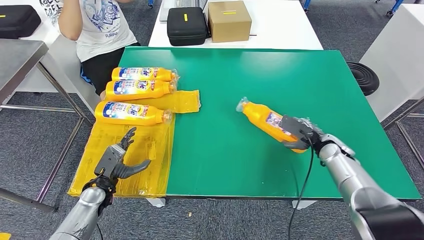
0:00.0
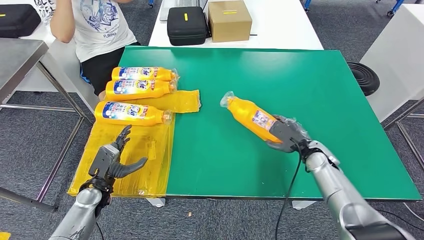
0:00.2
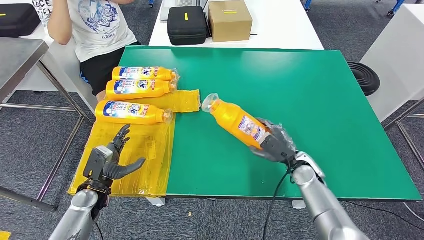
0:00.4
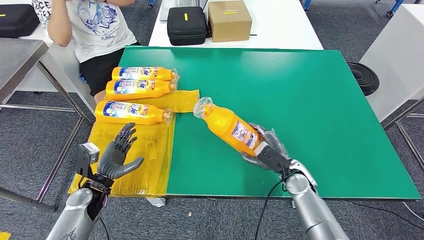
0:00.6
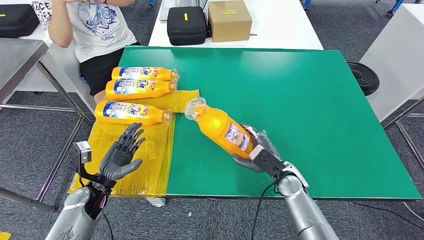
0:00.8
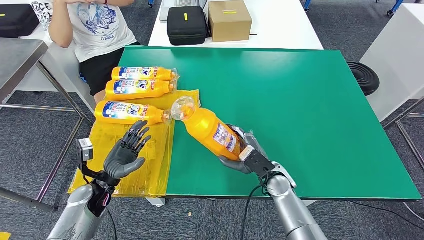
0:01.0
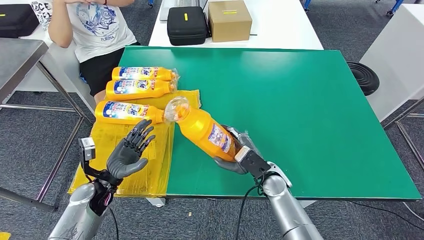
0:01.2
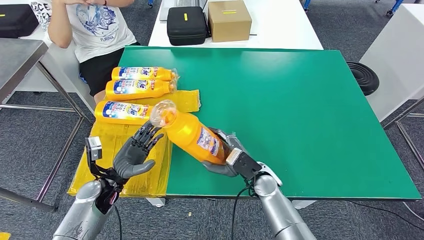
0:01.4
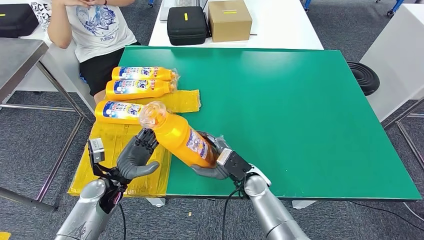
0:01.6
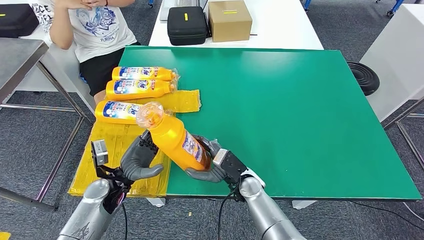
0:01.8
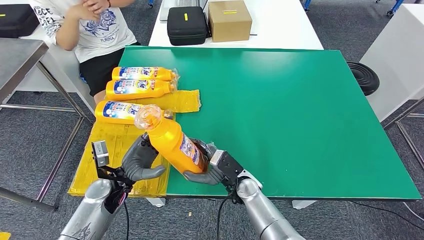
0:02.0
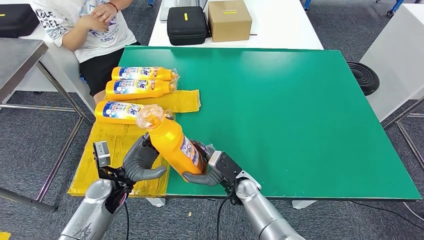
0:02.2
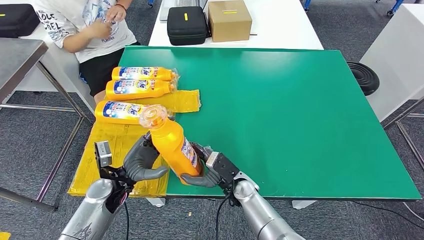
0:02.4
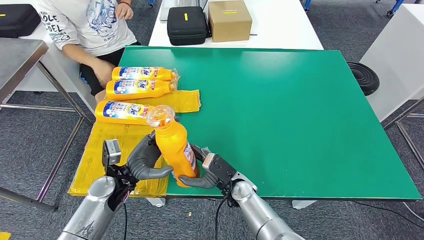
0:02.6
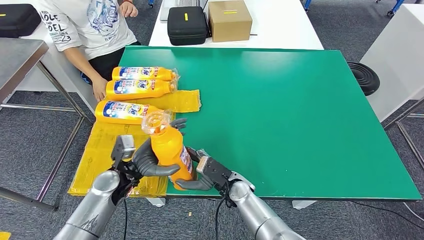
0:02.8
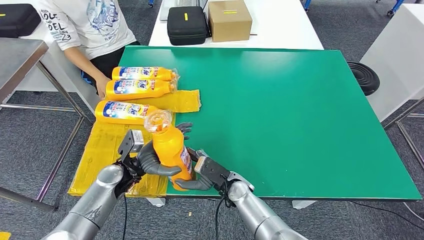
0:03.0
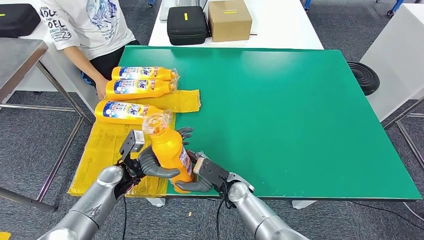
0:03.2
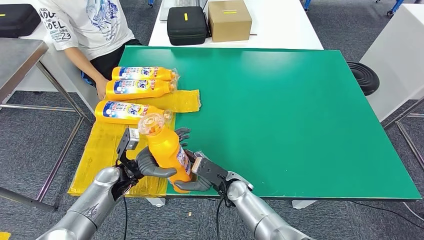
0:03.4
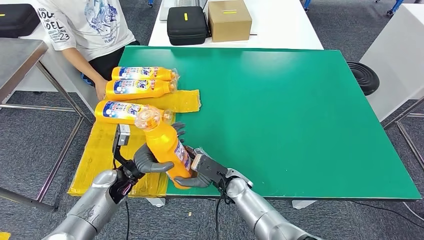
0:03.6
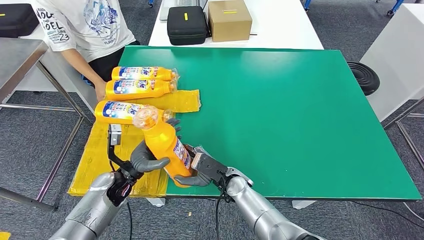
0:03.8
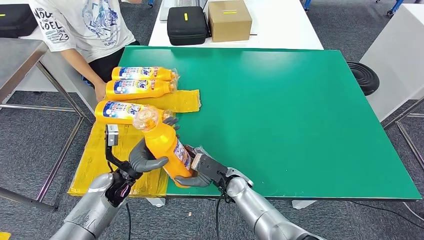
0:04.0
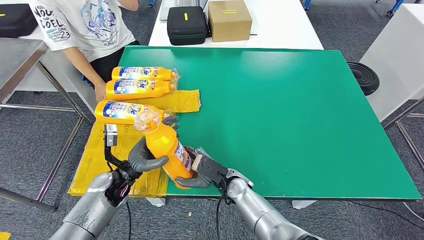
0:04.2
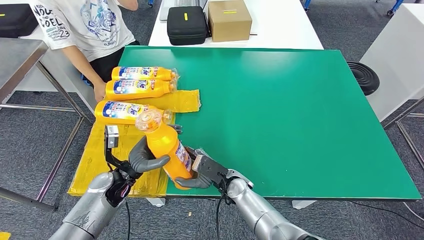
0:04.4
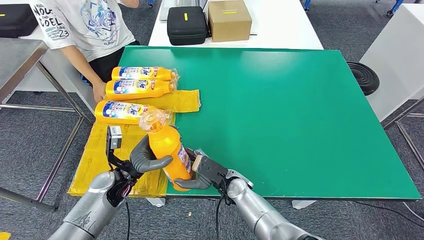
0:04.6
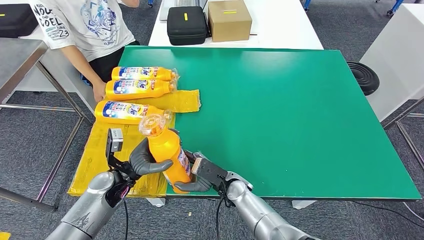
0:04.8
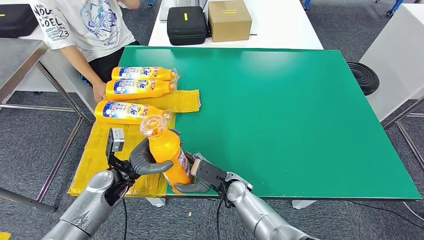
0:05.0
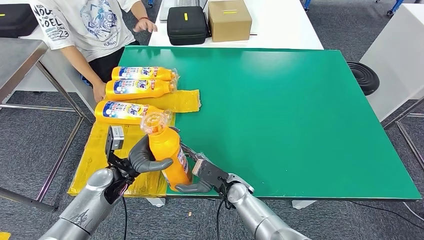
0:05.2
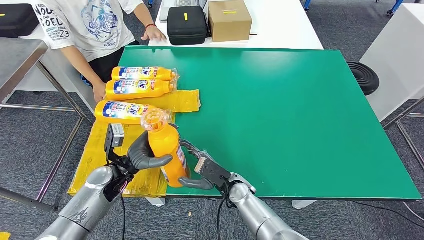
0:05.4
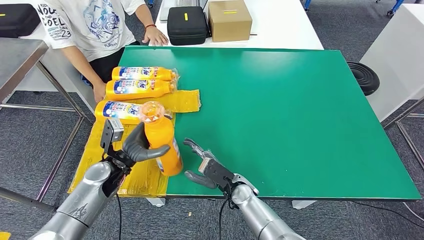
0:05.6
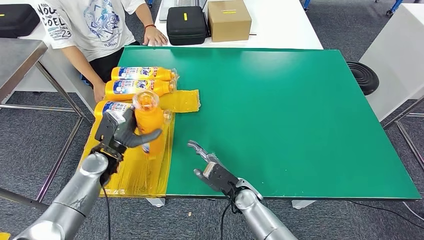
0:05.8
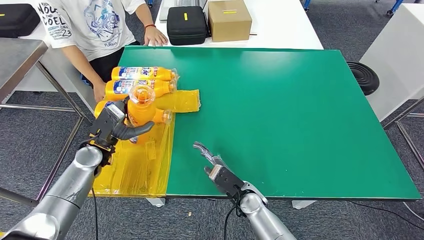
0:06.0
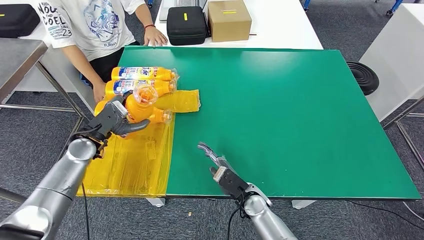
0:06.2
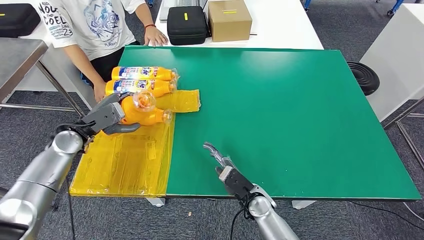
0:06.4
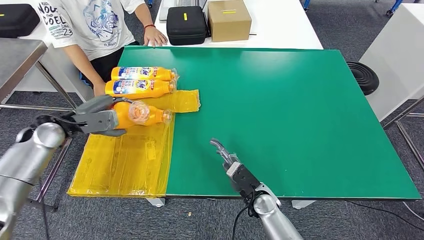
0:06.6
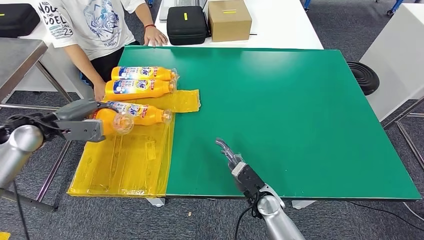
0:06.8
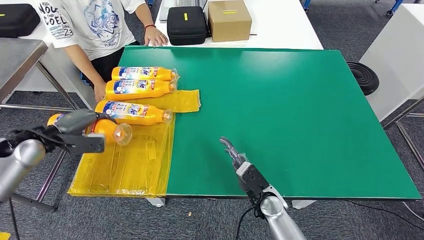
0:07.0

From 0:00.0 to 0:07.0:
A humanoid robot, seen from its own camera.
Step, from 0:00.0 to 0:02.4: Pick up the bottle from the table.
Step, from 0:02.6 to 0:07.0: Flip the bottle to face forward.
From 0:01.4 to 0:02.8: The left hand ends up roughly 5 cm from where it was. The right hand goes some 5 cm to the left.
From 0:05.6 to 0:07.0: The right hand moves to the right, roughly 5 cm. Meanwhile the left hand goes approximately 20 cm to the left and upward.
